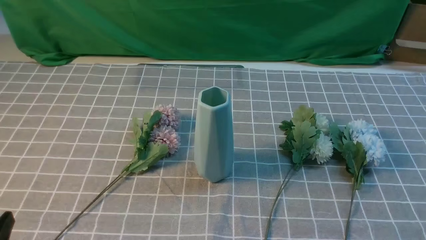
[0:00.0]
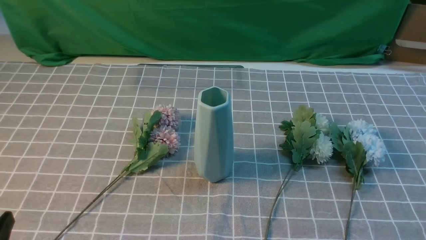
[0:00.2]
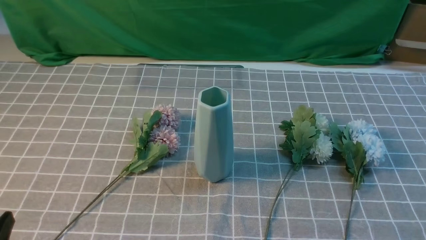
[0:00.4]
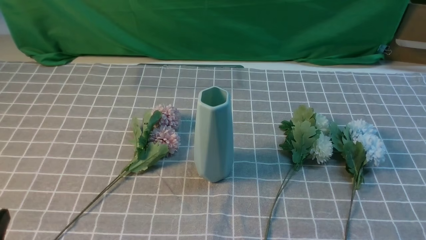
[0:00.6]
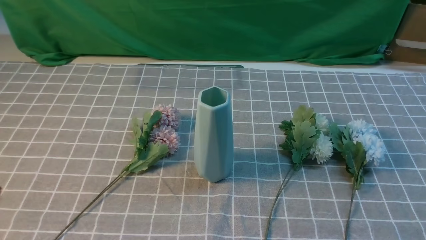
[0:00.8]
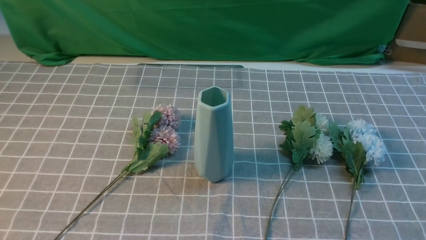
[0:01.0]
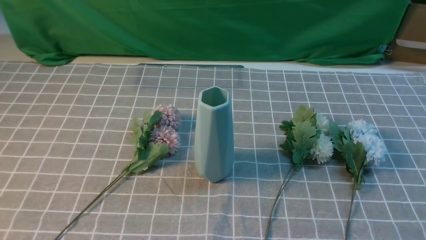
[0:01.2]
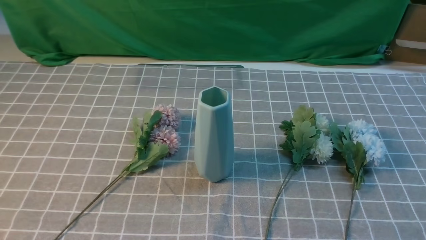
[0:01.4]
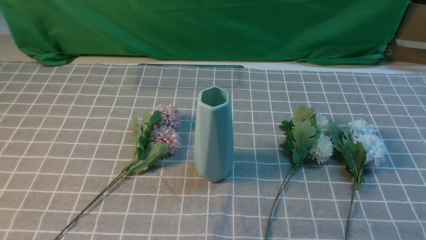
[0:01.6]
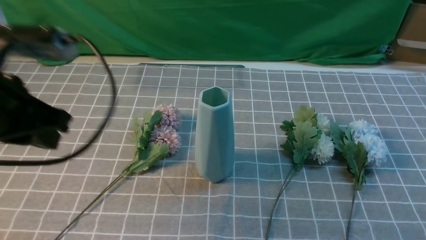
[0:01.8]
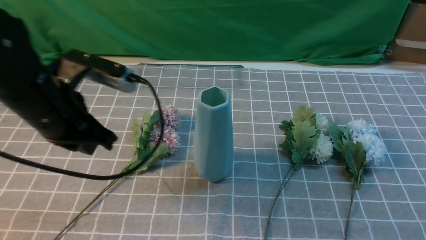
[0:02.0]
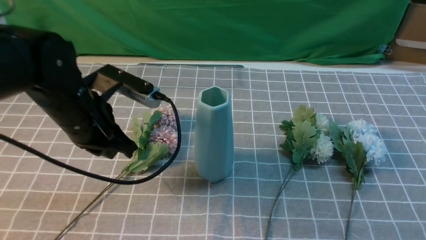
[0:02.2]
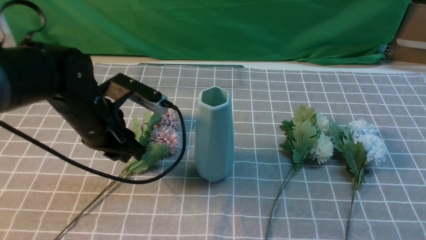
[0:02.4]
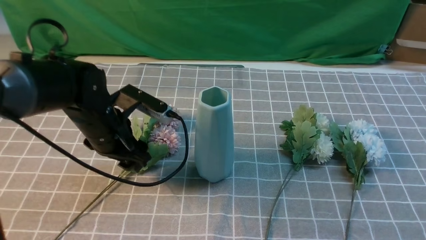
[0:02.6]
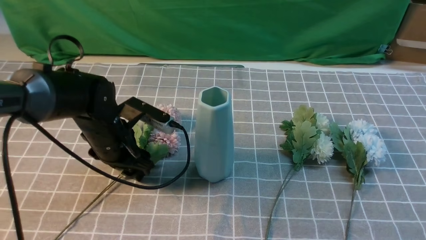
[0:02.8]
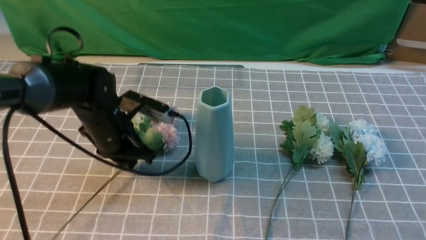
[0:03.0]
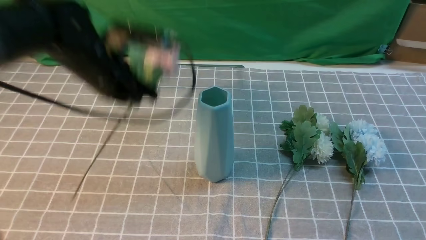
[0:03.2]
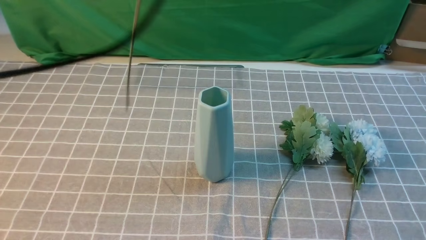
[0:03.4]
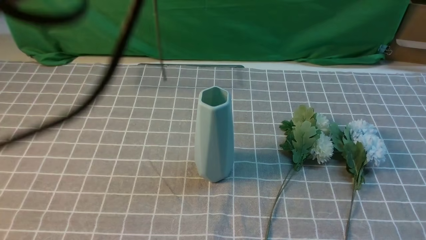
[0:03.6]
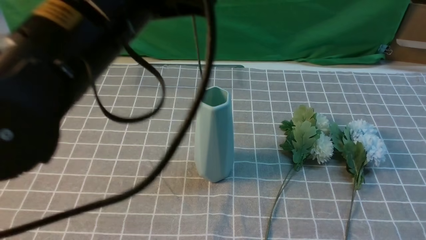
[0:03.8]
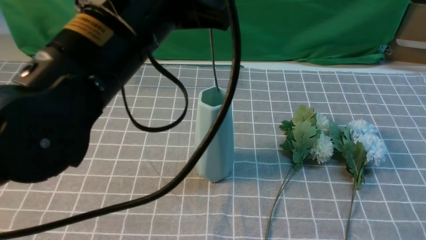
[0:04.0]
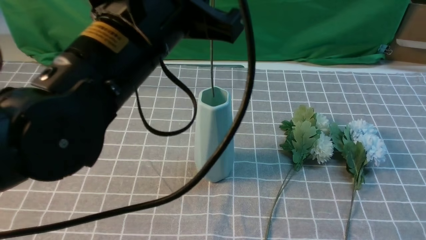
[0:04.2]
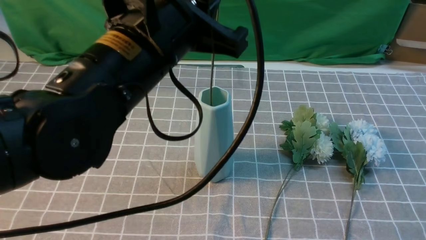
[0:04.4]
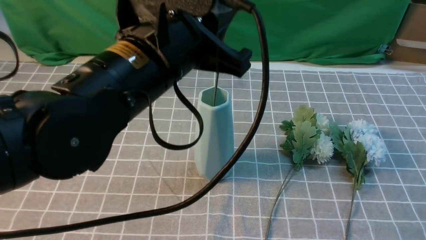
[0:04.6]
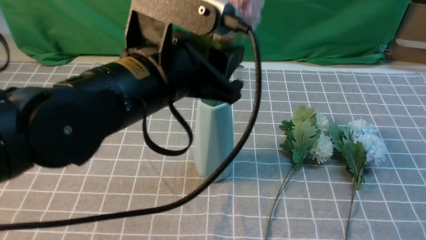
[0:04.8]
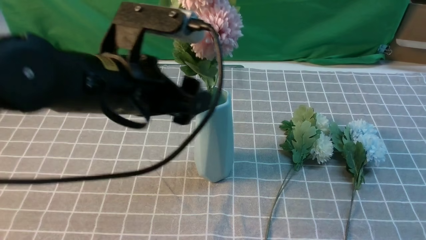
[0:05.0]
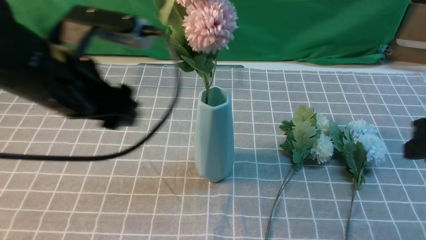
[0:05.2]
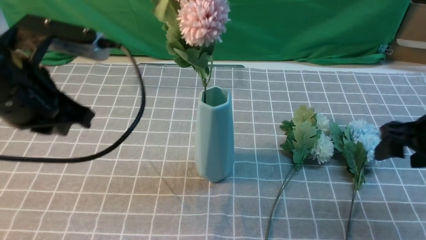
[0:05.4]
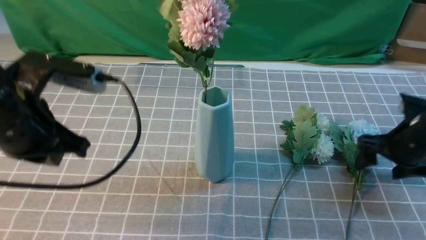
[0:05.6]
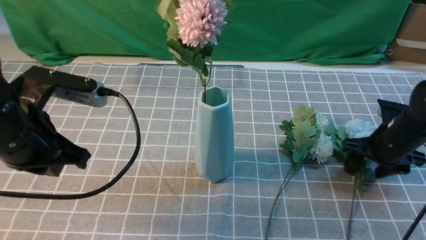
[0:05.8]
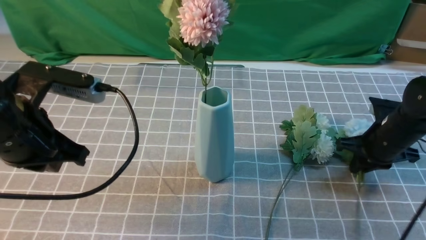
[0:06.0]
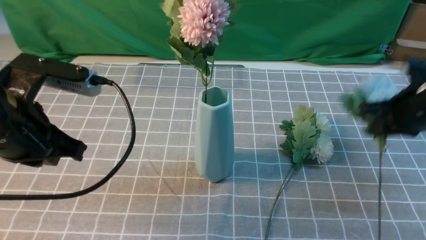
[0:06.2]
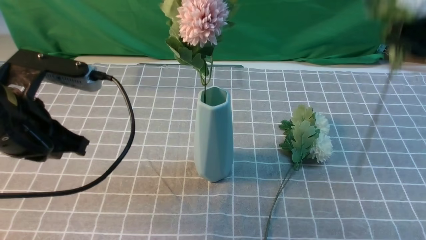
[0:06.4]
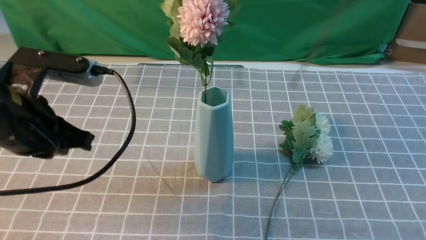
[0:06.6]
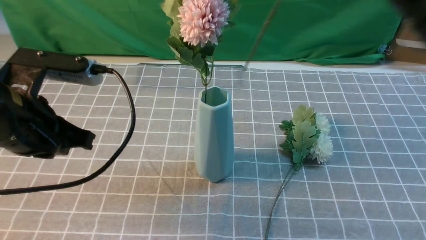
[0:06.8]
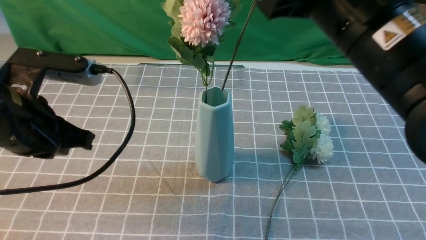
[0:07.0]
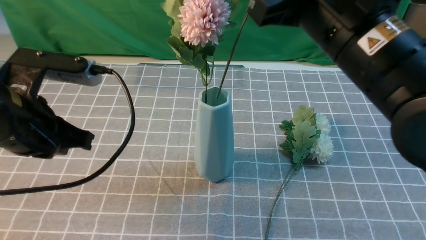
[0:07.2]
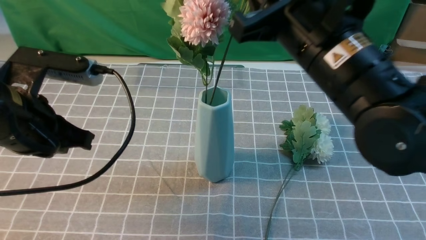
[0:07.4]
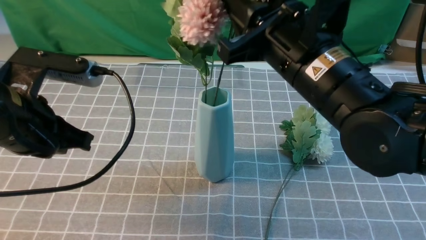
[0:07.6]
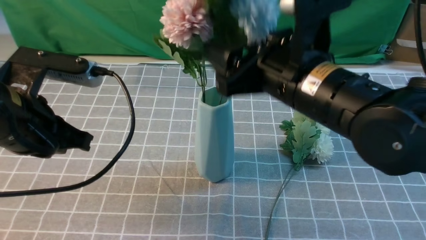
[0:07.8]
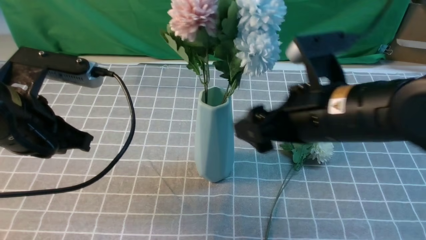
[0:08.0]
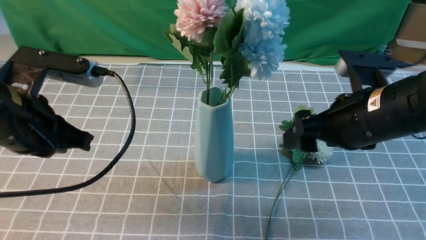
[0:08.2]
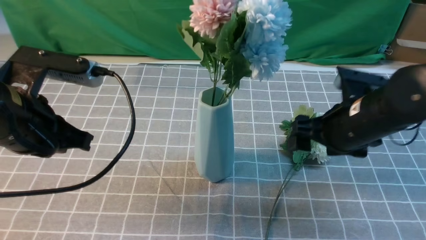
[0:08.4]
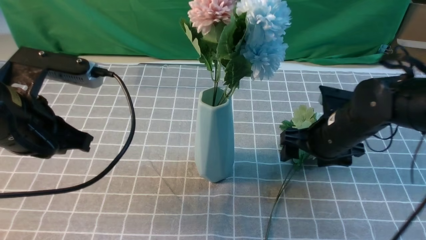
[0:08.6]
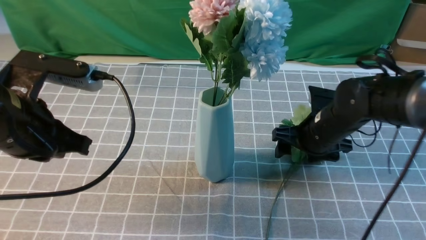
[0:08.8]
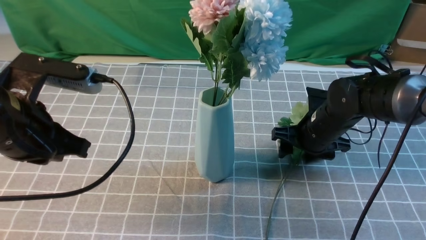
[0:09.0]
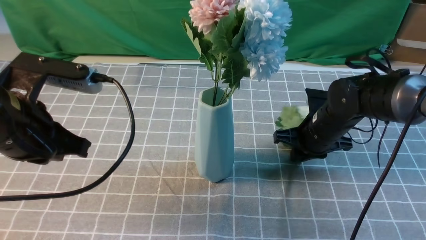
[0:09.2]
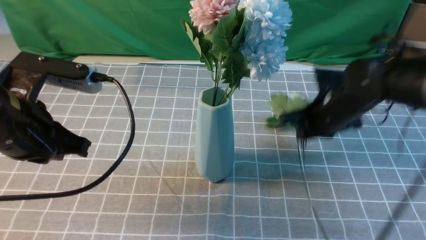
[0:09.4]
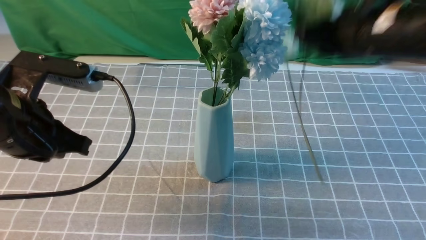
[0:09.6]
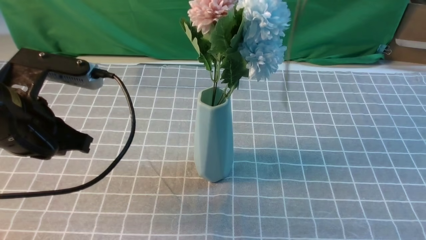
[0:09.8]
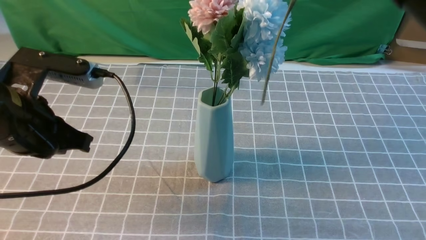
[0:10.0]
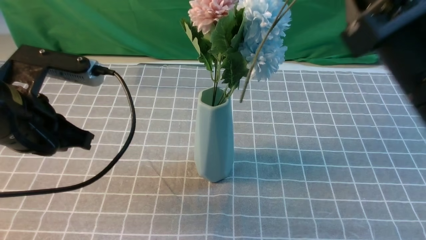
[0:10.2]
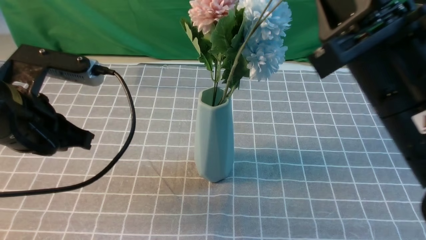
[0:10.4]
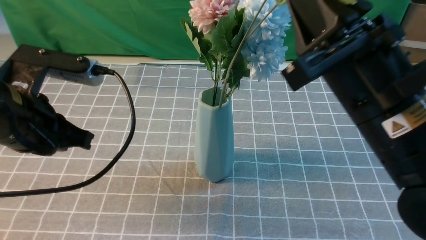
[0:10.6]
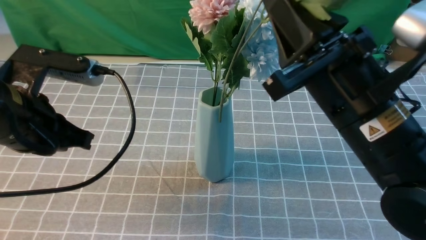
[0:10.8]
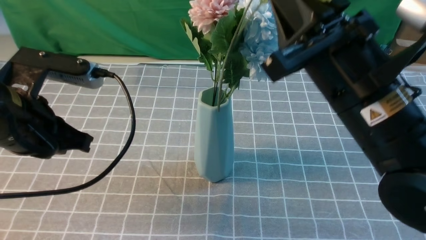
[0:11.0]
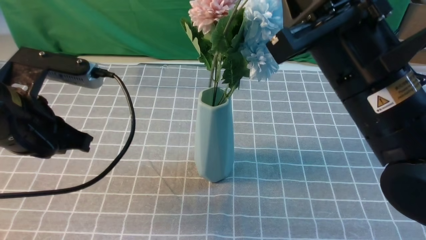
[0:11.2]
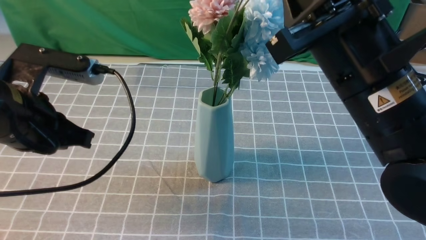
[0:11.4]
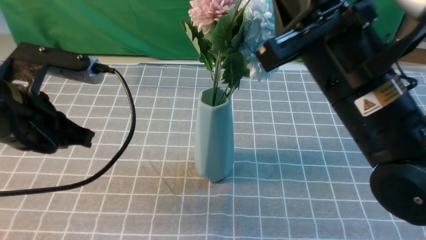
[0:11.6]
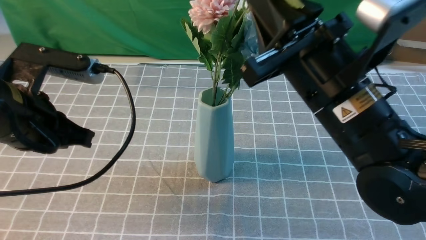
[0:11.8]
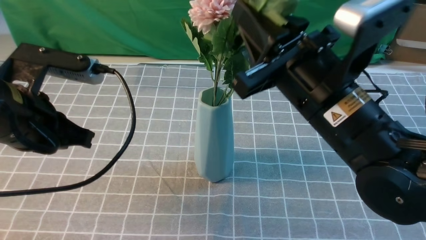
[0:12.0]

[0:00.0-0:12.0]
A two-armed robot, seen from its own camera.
Task of the whole recording: insert the flowers into the vase on the table with the grey tablecloth.
Step, 0:00.0 to 0:02.8: use the left arm to grab a bunch of fresh flowers.
Step, 0:03.0 to 0:04.8: use the left arm to insert the flowers into the vase.
Step, 0:05.2 to 0:05.8: use the right arm to grab a bunch of fresh flowers.
Step, 0:06.2 to 0:08.0: use the right arm to insert the flowers into the vase.
Step, 0:08.2 to 0:09.0: use the right arm to grab a bunch of fresh flowers.
0:01.6 to 0:03.0: The left gripper heads forward, downward and to the right, covering about 25 cm, and opens its fingers. Meanwhile the right gripper moves upward and forward, some 15 cm.
0:03.0 to 0:04.4: The left gripper shifts some 20 cm upward, backward and to the right.
0:04.4 to 0:06.0: The left gripper goes some 15 cm to the left and downward, and opens, then closes again. Meanwhile the right gripper heads forward and downward, covering roughly 25 cm, and opens, then closes once more.
0:06.0 to 0:07.6: The right gripper heads to the left, upward and backward, covering roughly 25 cm.
0:07.6 to 0:09.0: The right gripper moves downward, forward and to the right, approximately 25 cm, and opens, then closes again.
0:09.0 to 0:10.4: The right gripper heads upward and backward, covering approximately 30 cm, and closes its fingers.
0:10.4 to 0:12.0: The right gripper changes place by approximately 10 cm.

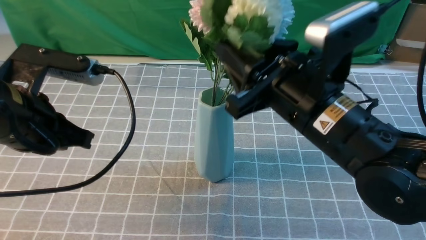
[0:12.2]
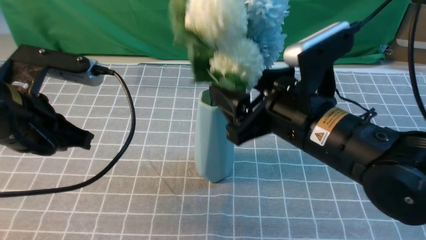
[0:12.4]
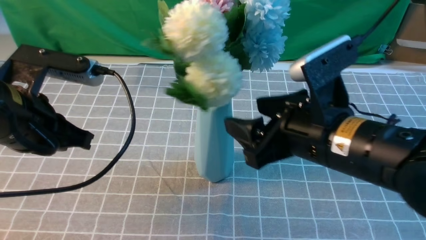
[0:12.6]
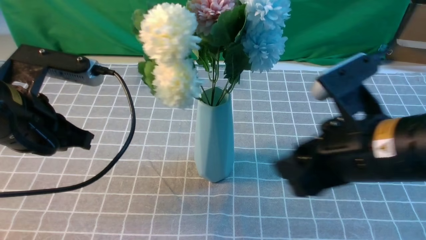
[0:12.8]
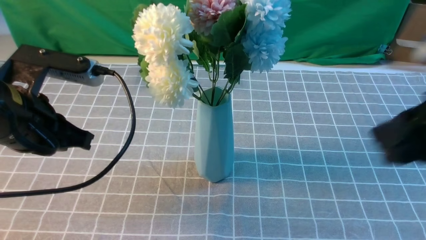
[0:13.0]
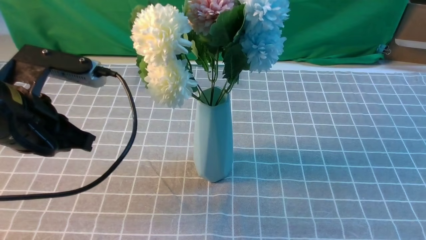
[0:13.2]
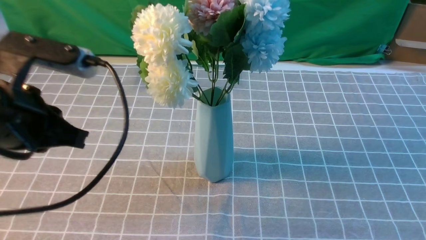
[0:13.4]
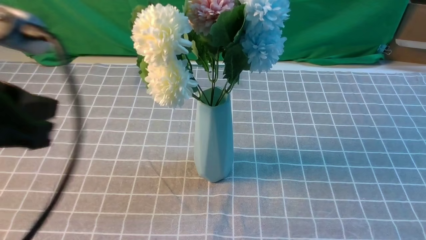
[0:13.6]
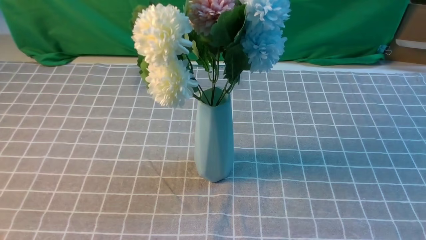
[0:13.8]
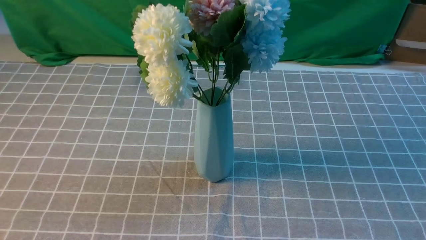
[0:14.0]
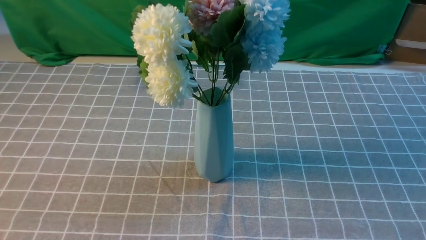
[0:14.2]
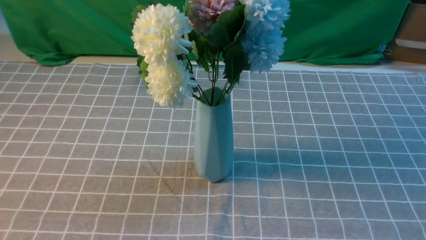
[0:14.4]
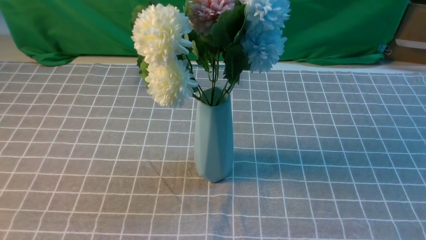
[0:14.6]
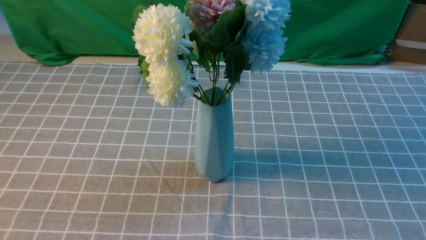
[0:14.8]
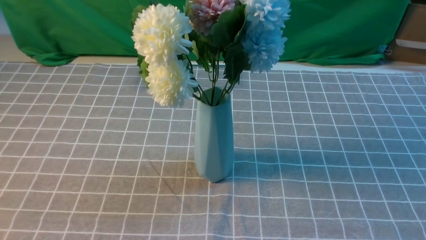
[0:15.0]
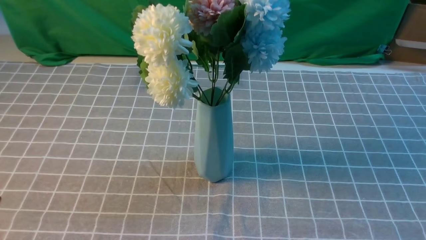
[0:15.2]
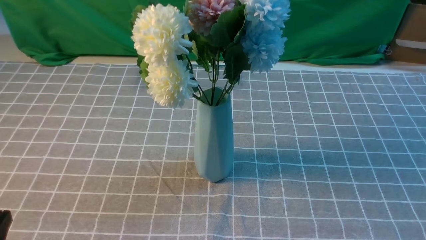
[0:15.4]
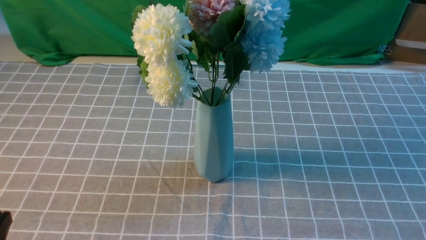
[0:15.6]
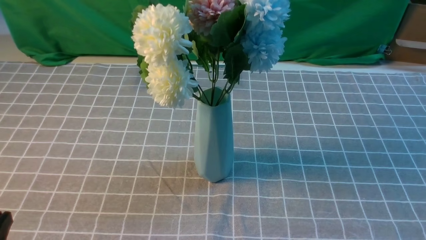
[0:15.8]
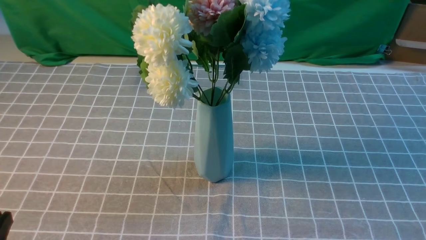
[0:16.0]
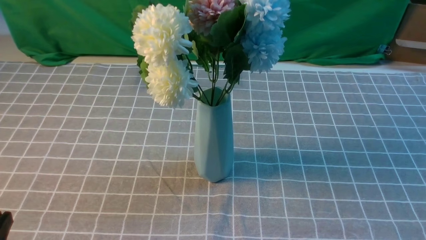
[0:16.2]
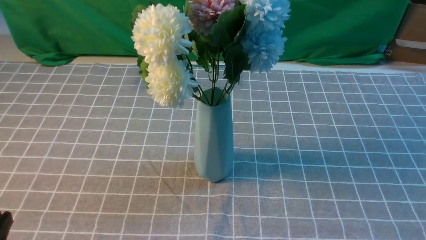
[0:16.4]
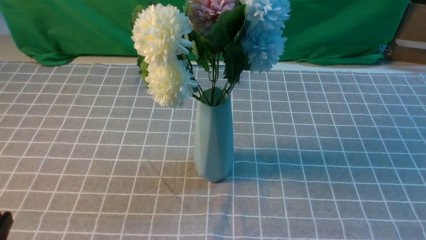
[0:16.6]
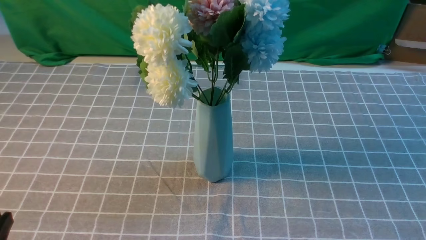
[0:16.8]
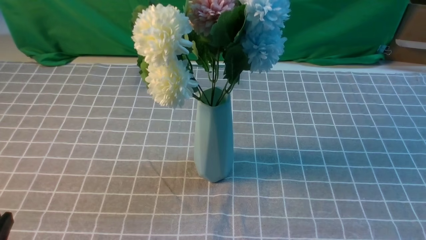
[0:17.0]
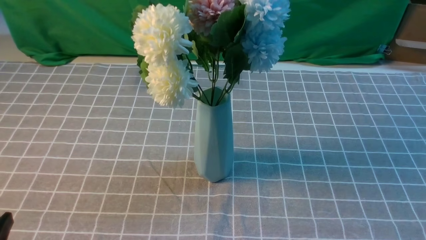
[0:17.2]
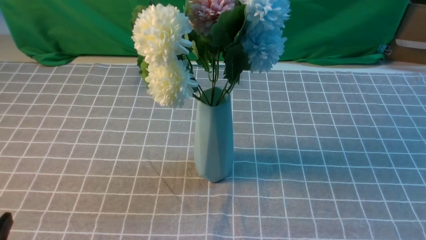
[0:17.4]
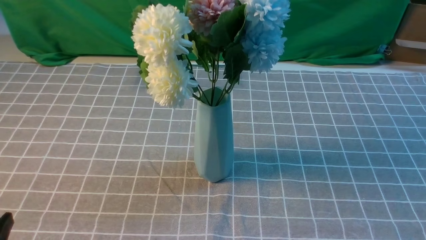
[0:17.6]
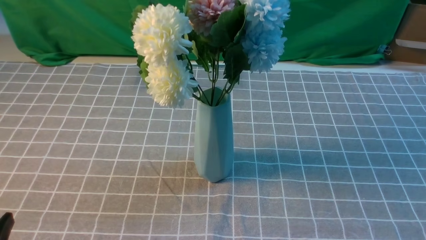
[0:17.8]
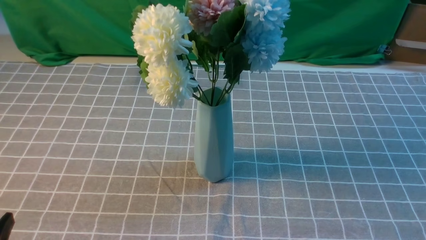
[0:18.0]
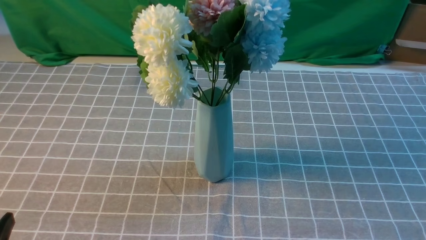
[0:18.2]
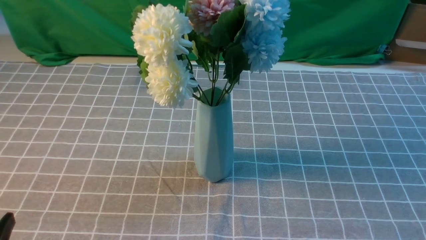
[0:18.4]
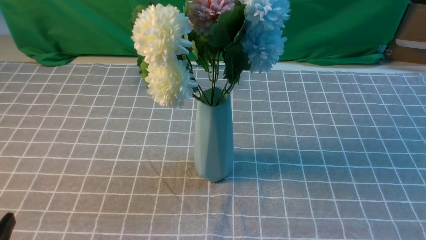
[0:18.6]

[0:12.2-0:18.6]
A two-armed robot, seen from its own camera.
Task of the whole recording: insert the flowers into the vase on the table with the grey tablecloth.
0:12.2 to 0:13.8: The right gripper goes approximately 30 cm backward and to the right, and closes up; the left gripper is displaced backward and upward by roughly 20 cm.
